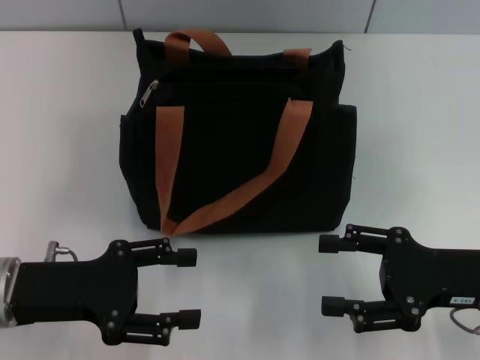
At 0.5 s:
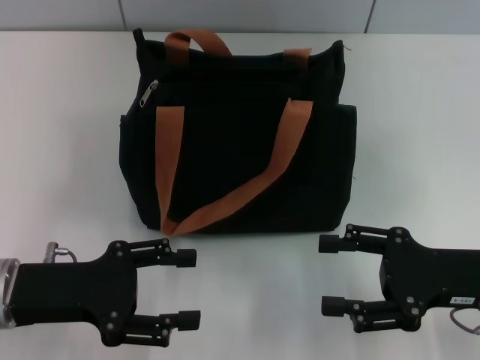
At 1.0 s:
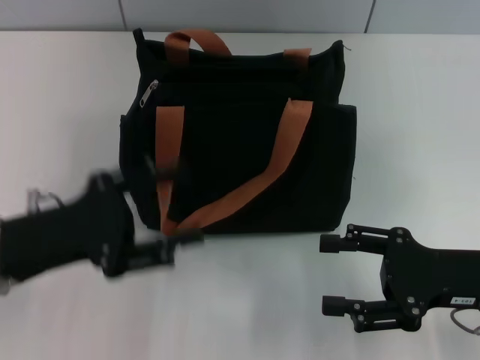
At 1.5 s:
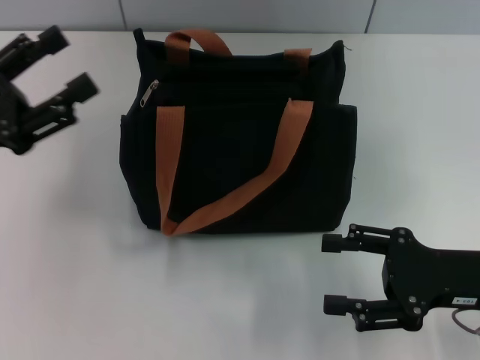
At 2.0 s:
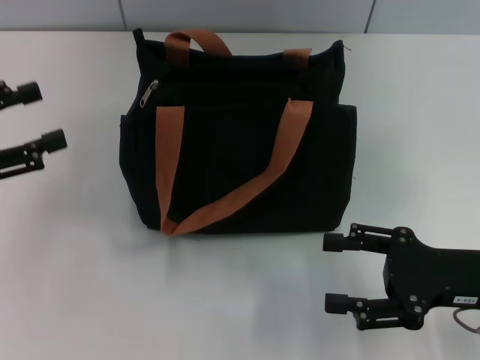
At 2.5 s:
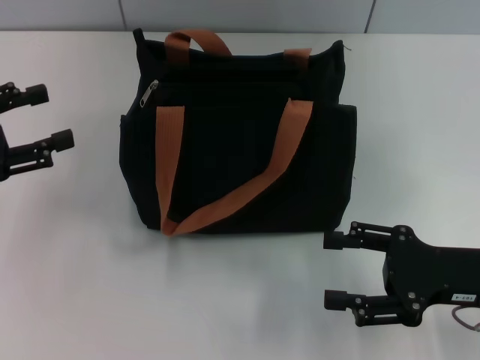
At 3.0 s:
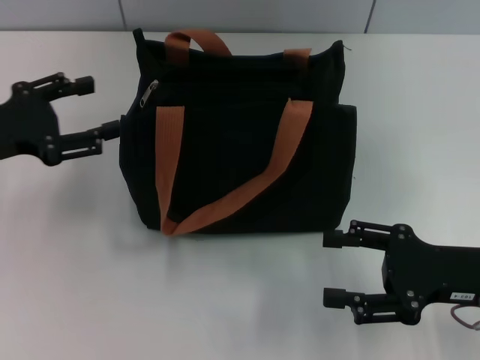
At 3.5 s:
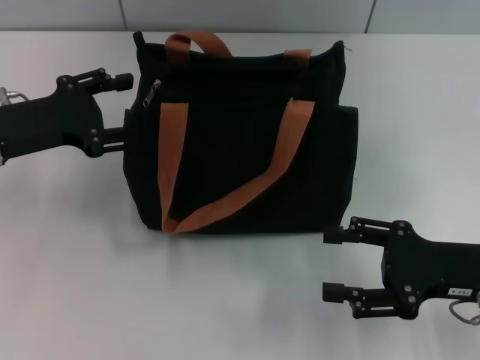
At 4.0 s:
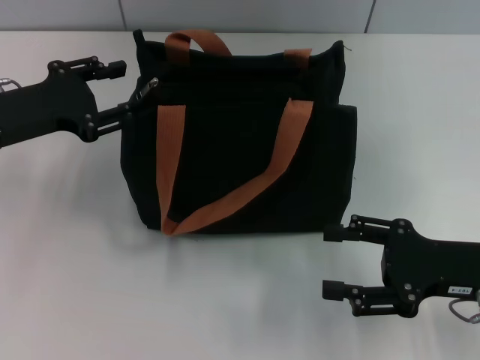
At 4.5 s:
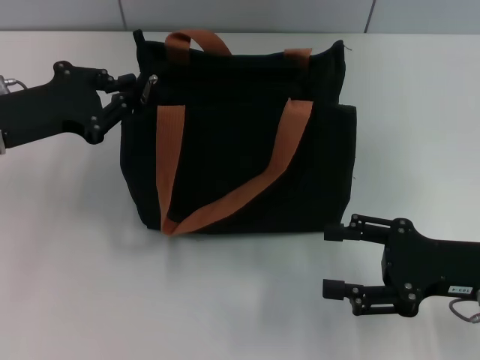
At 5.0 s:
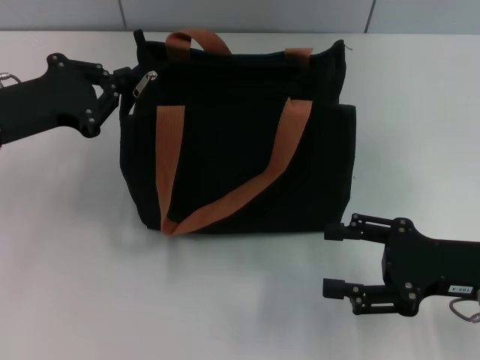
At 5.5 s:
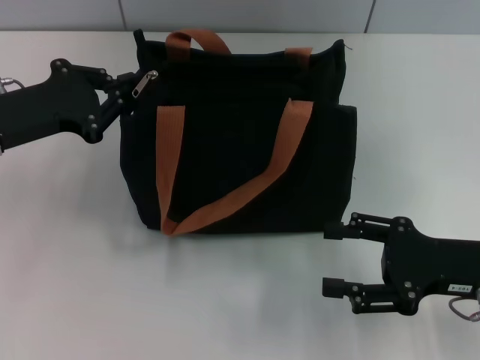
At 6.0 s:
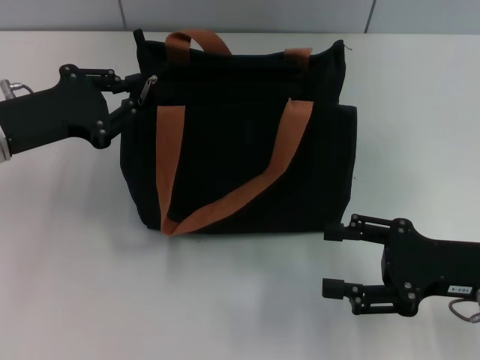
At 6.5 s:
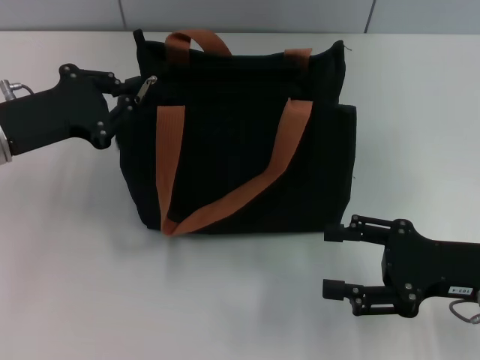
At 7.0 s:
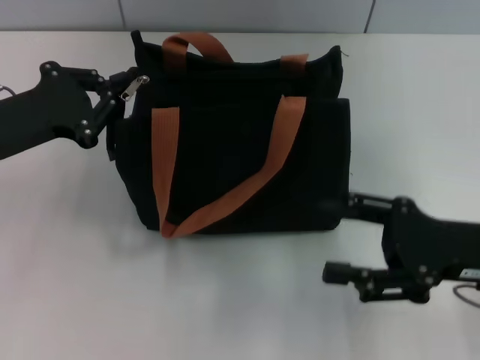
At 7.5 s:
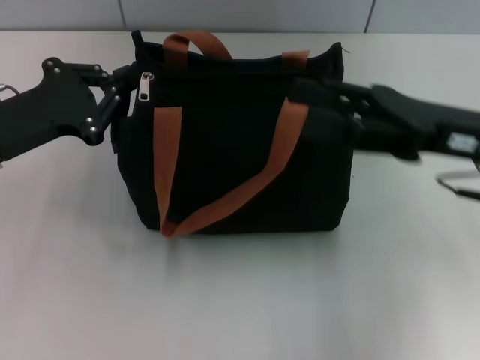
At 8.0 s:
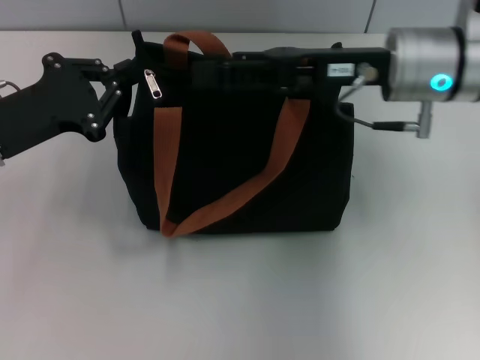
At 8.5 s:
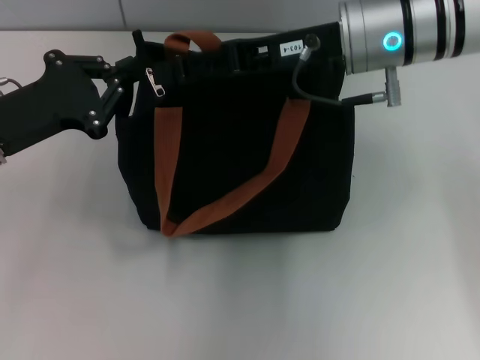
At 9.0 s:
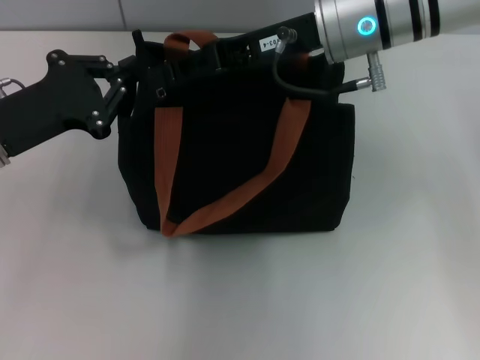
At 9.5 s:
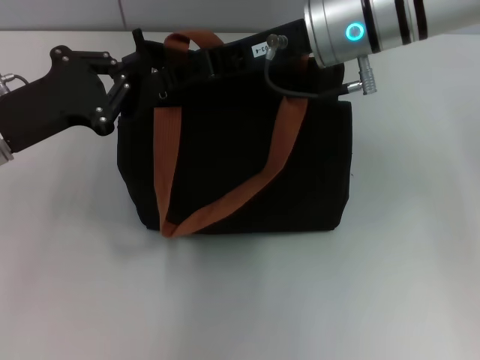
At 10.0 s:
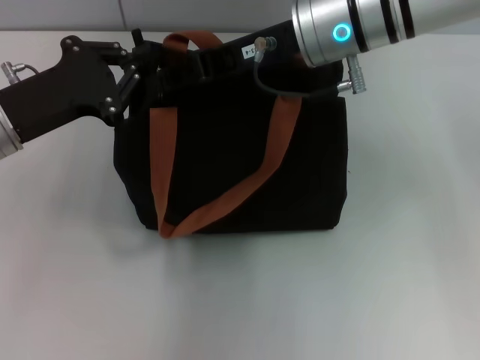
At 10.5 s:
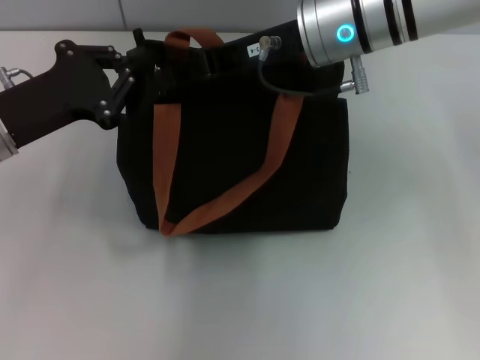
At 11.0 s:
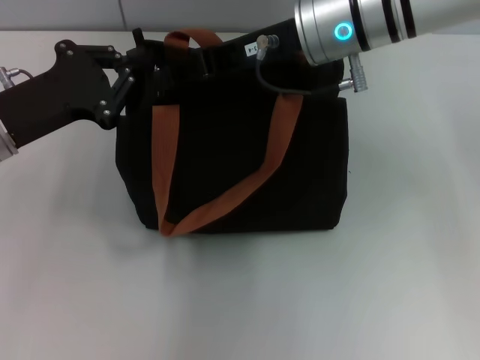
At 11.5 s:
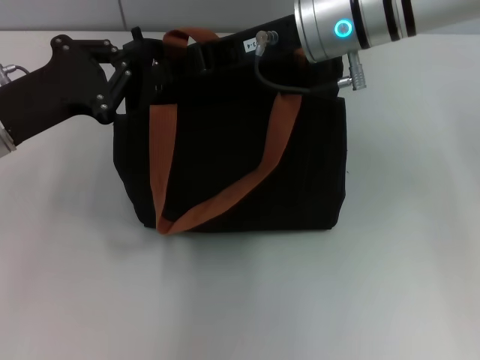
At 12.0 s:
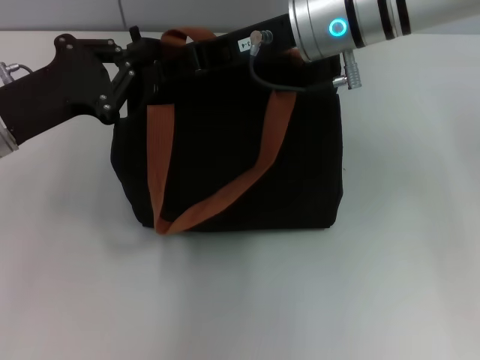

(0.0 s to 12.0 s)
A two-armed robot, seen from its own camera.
0.0 s - 2.0 s: The left gripper shifts about 10 cm to the left and upward.
2.0 s - 4.0 s: The left gripper travels forward and to the right by some 10 cm.
4.0 s - 6.0 s: The left gripper closes up.
6.0 s - 8.0 s: The right gripper travels forward, to the left and upward by approximately 20 cm.
8.0 s - 10.0 s: The right gripper goes approximately 5 cm to the left, and closes.
10.0 s - 12.0 s: The two grippers keep their place.

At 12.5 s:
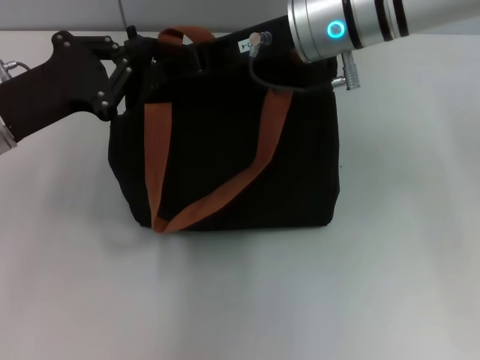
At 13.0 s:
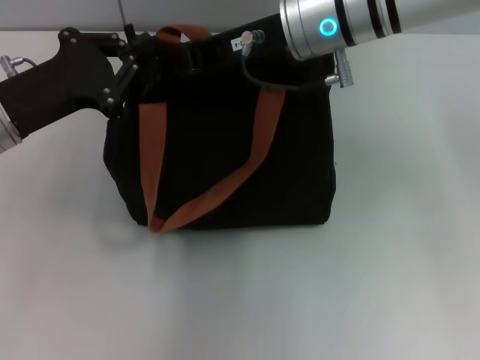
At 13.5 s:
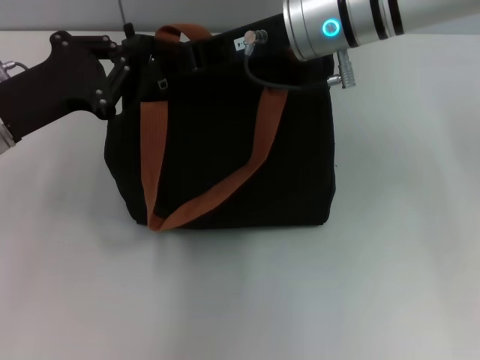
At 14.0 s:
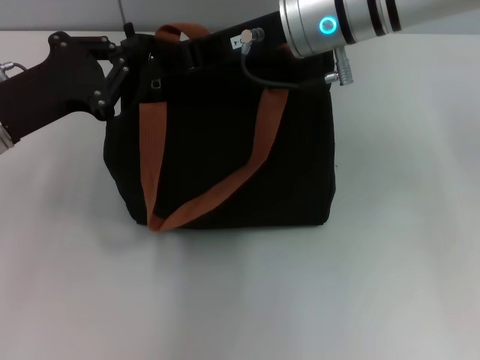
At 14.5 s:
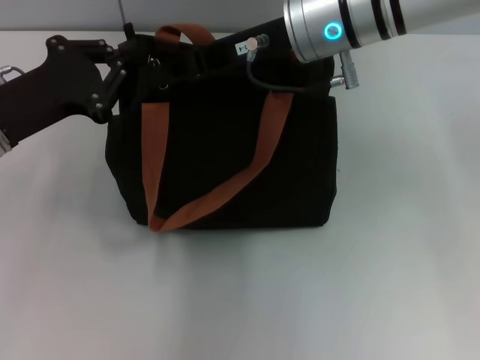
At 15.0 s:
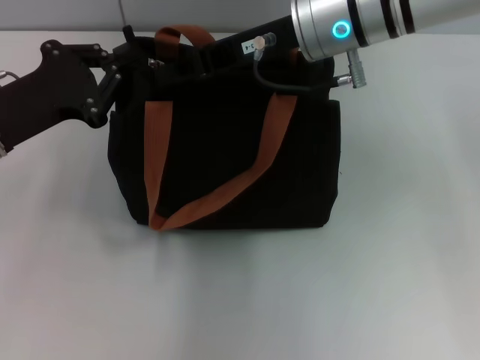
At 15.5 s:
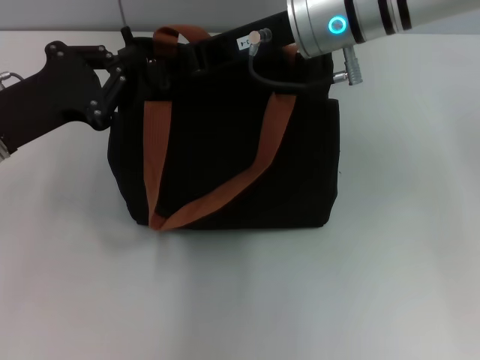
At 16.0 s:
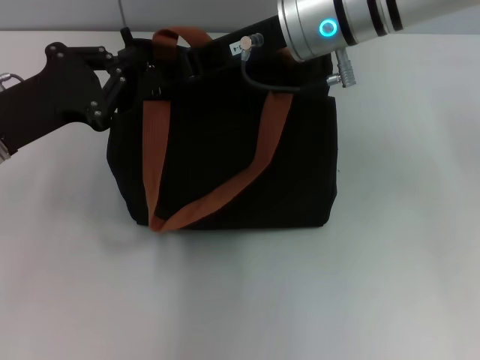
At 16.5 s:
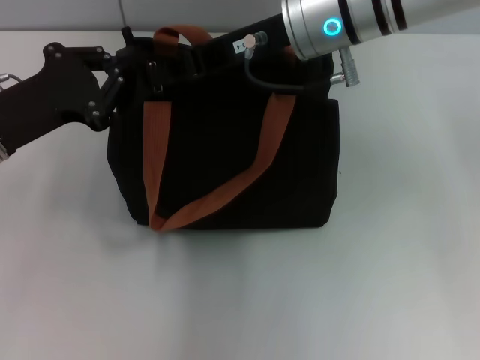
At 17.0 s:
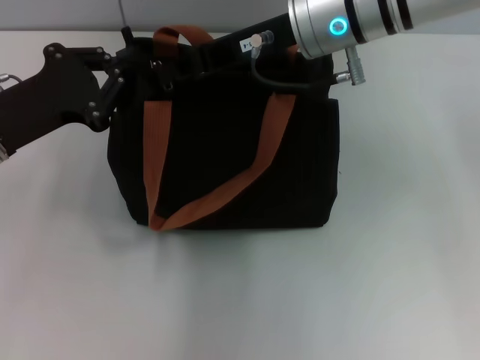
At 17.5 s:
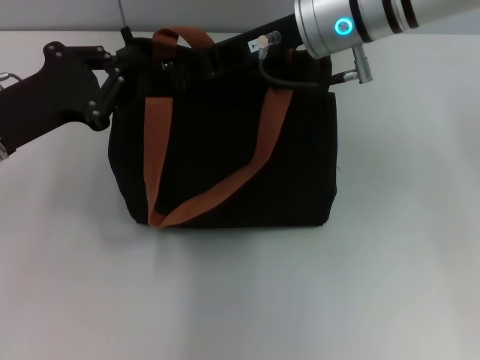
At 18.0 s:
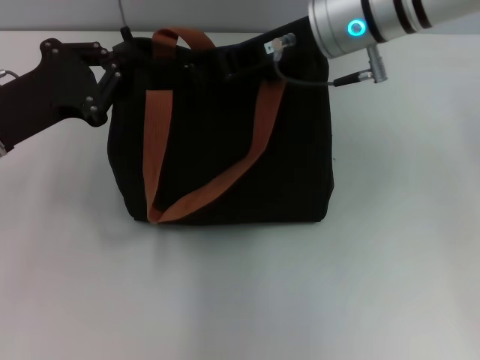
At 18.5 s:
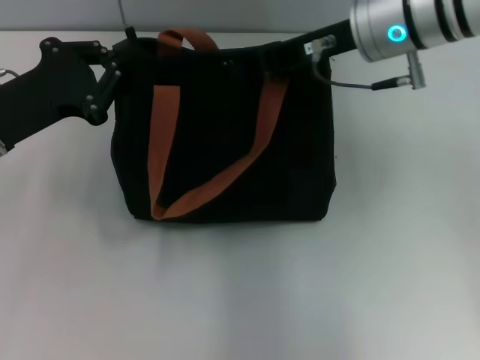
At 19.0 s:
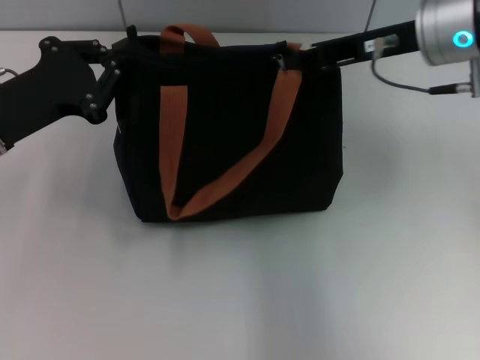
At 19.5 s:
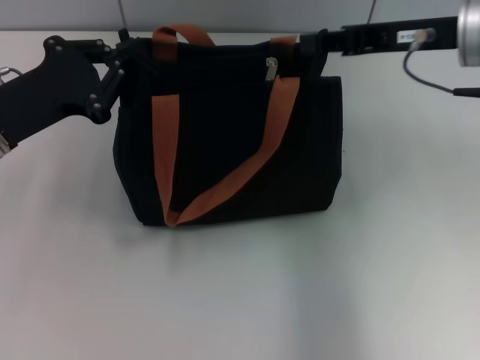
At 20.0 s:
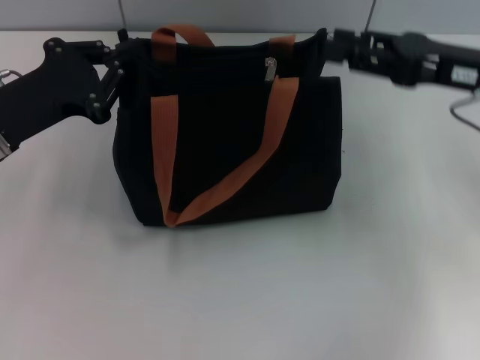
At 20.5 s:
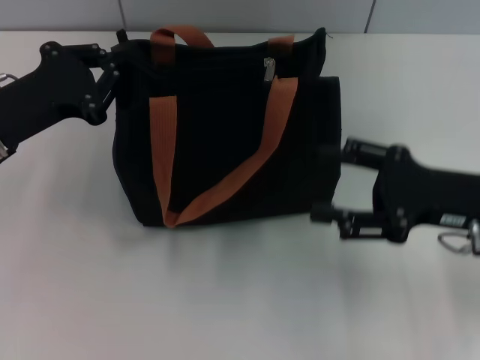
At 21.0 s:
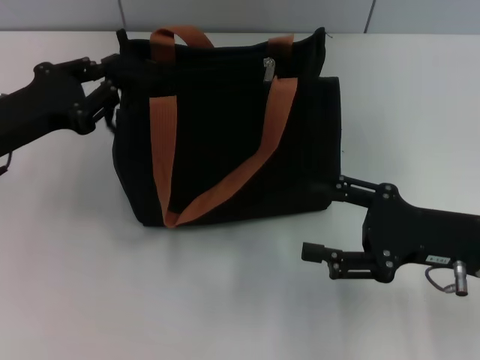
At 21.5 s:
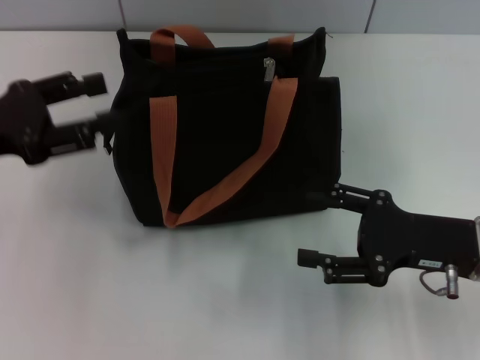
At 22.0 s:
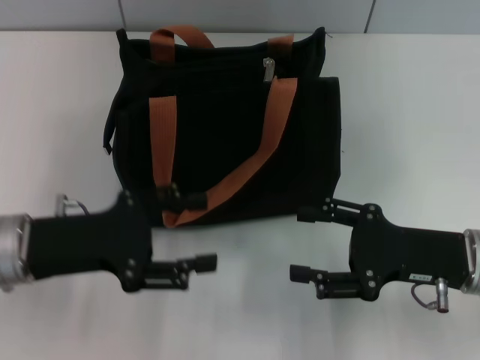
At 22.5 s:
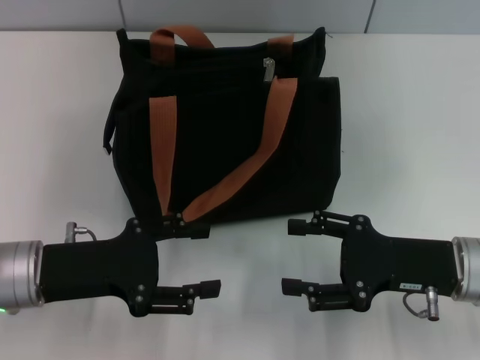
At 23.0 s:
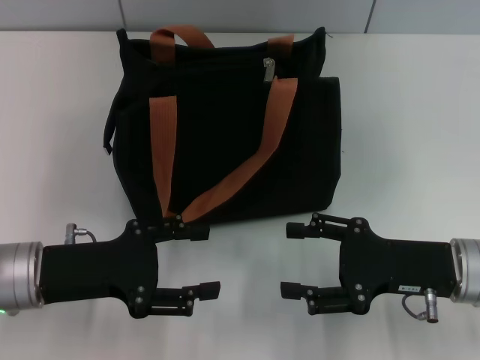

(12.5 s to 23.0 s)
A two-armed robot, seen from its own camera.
Step, 12.5 s - 19.0 s: Pull up the zipper with your right hand.
12.5 s - 16.5 s: The two grippers keep their place.
16.5 s - 19.0 s: The right gripper heads to the right, covering some 10 cm.
19.0 s - 21.0 s: The right gripper moves backward, downward and to the right, roughly 20 cm, and opens up.
21.0 s - 23.0 s: The left gripper goes roughly 5 cm backward, and opens up.

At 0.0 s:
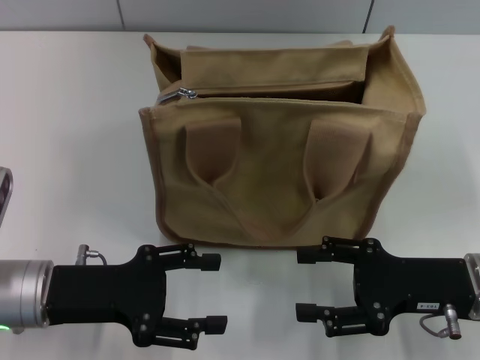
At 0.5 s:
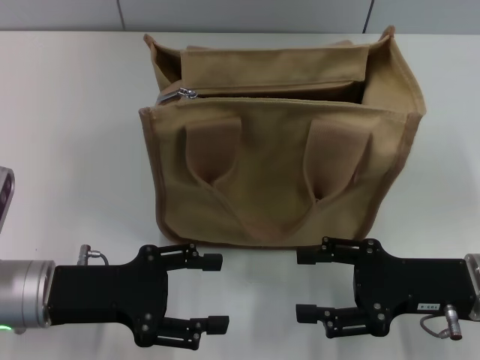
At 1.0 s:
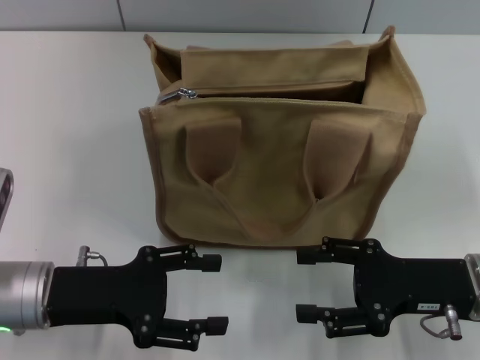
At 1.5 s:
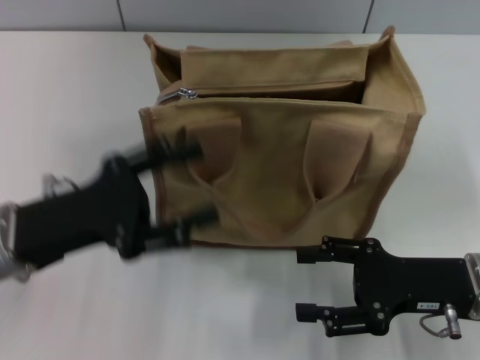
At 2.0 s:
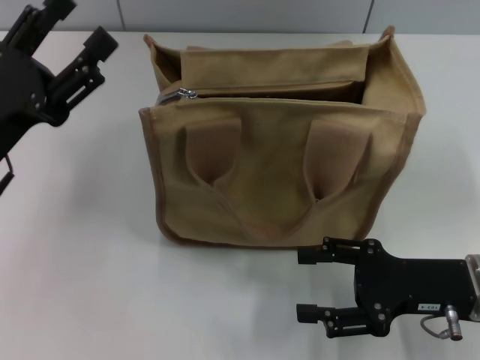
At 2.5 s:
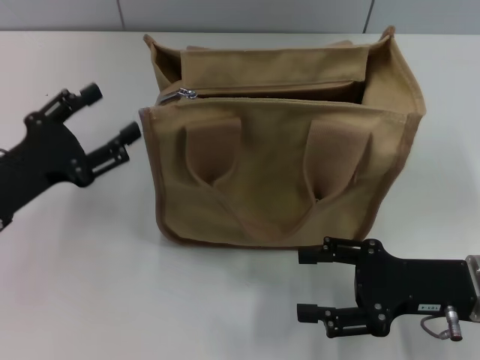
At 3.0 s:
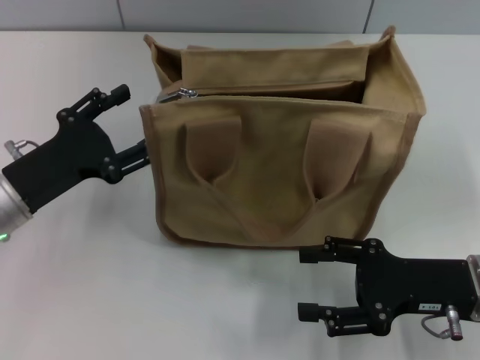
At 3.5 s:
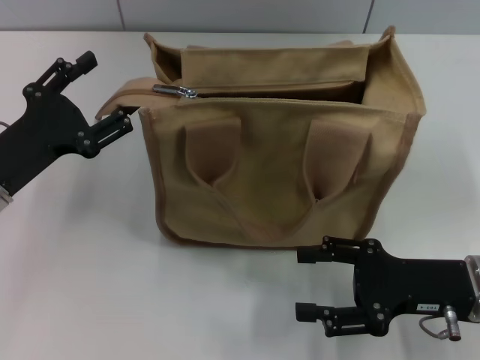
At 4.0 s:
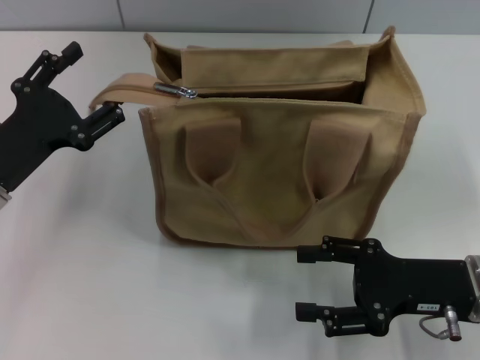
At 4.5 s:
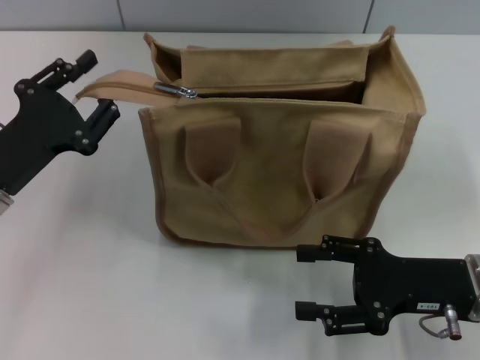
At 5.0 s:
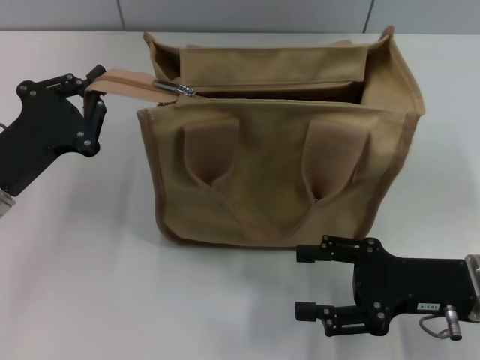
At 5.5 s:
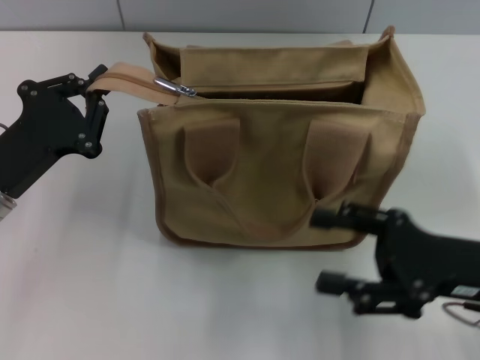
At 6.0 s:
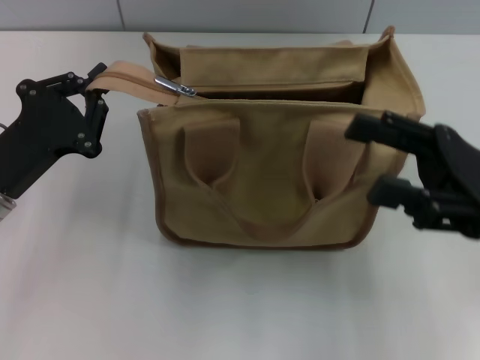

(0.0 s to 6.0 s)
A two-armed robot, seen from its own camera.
0.0 s - 2.0 s: The left gripper ends up some 5 cm from where it was.
4.0 s - 6.0 s: The left gripper closes, while the right gripper moves upward, some 10 cm.
